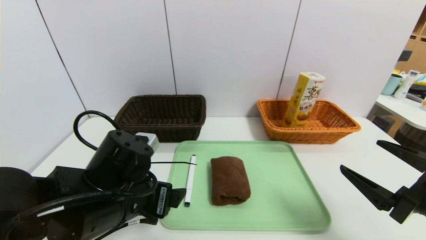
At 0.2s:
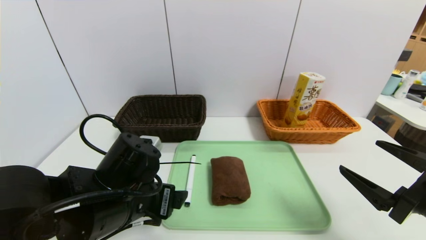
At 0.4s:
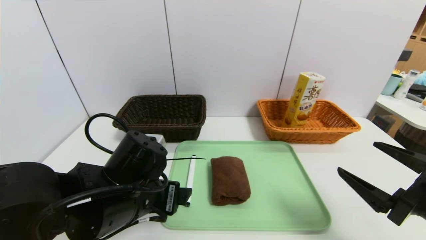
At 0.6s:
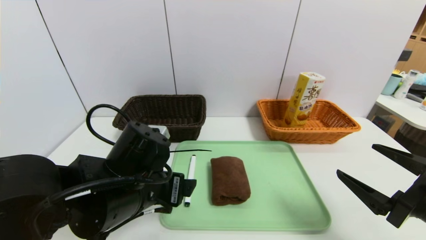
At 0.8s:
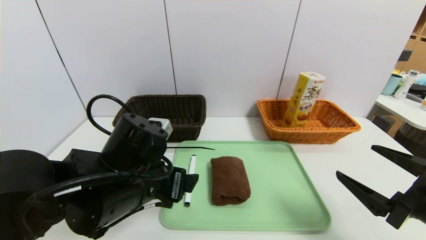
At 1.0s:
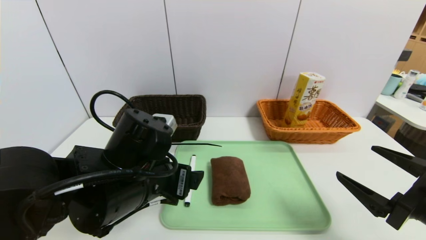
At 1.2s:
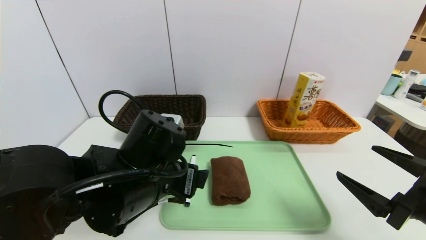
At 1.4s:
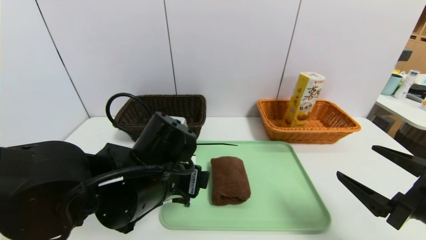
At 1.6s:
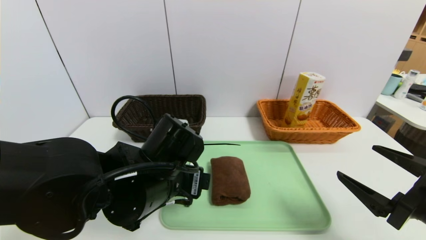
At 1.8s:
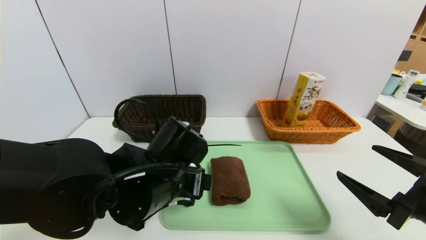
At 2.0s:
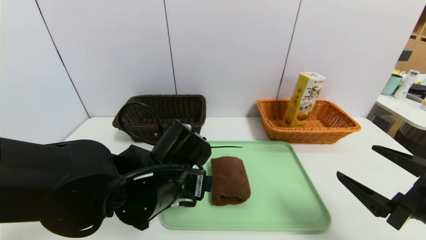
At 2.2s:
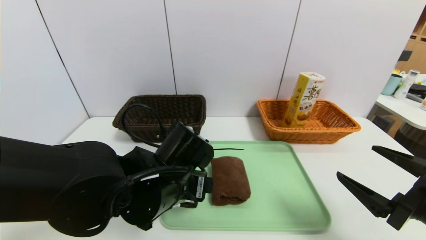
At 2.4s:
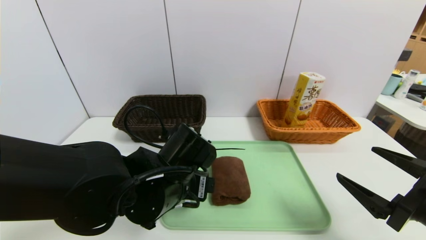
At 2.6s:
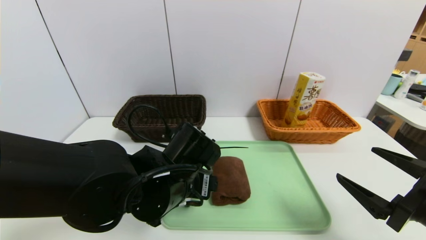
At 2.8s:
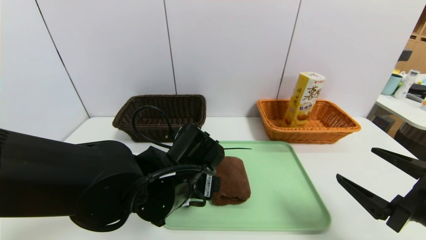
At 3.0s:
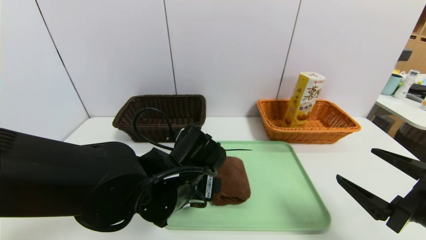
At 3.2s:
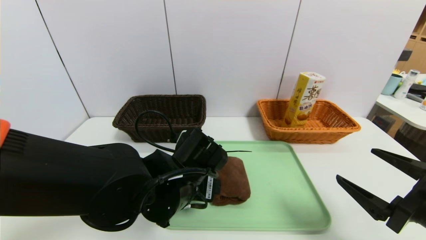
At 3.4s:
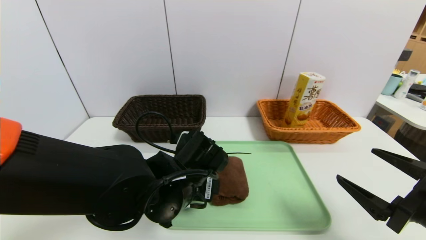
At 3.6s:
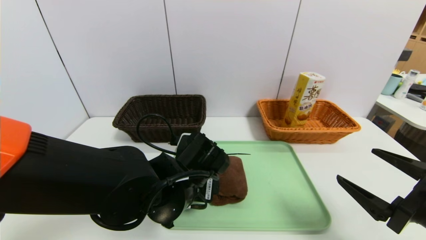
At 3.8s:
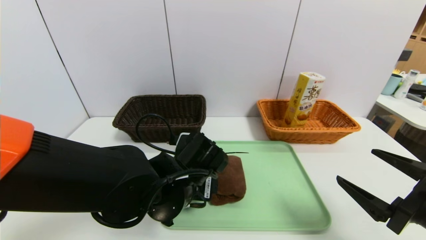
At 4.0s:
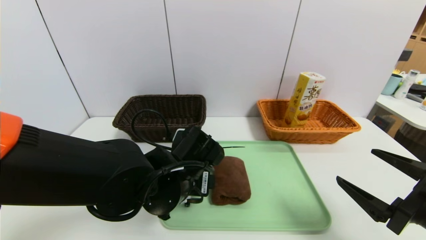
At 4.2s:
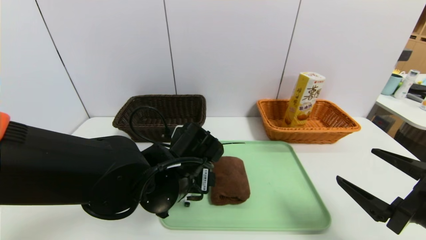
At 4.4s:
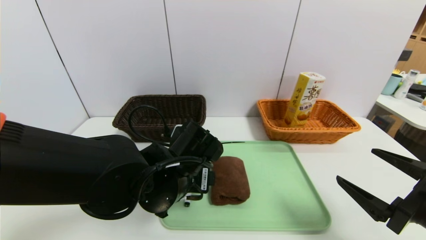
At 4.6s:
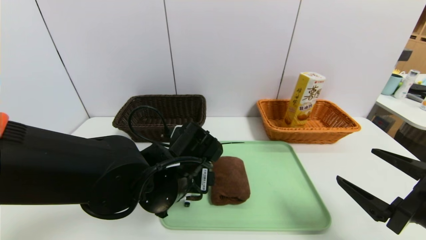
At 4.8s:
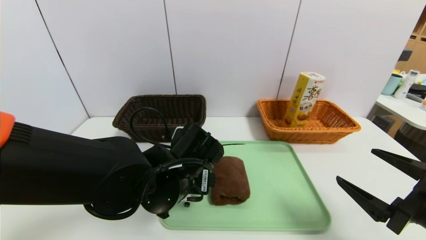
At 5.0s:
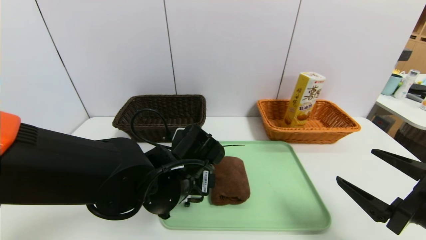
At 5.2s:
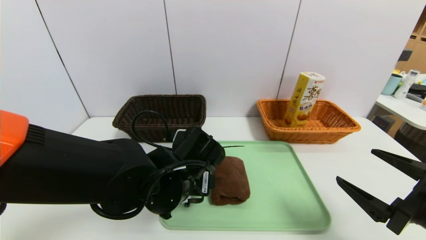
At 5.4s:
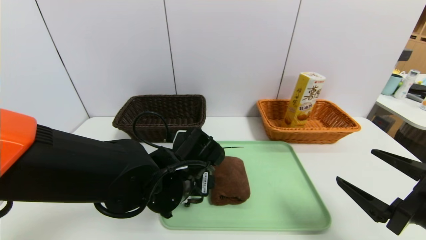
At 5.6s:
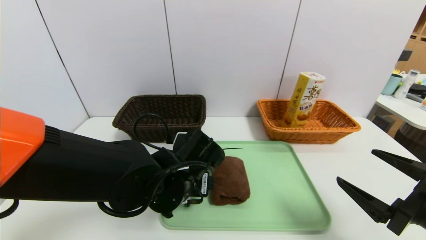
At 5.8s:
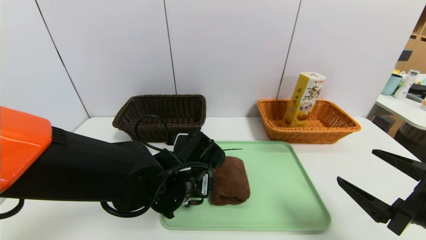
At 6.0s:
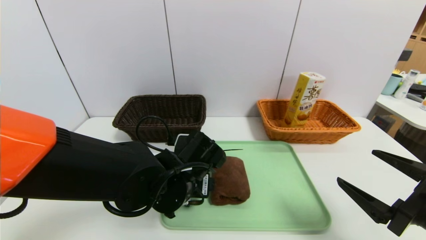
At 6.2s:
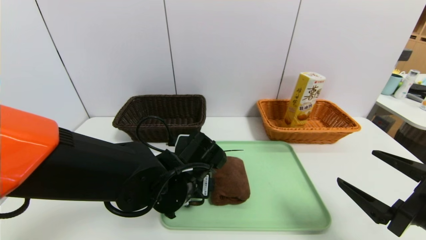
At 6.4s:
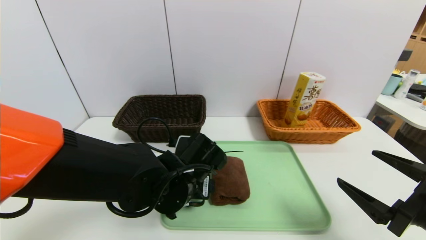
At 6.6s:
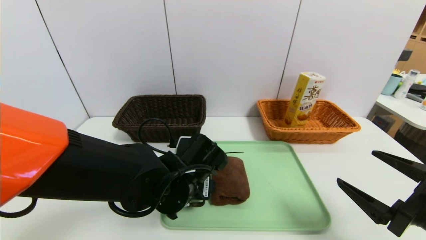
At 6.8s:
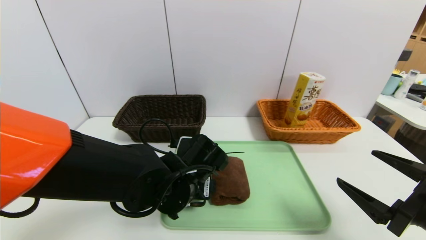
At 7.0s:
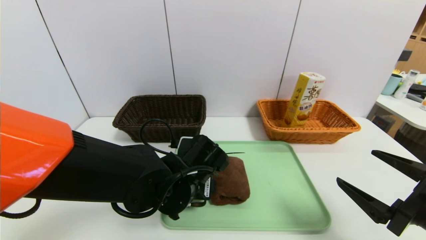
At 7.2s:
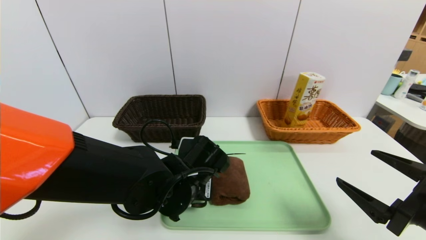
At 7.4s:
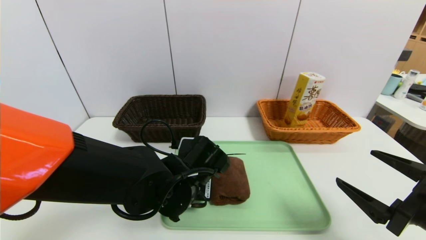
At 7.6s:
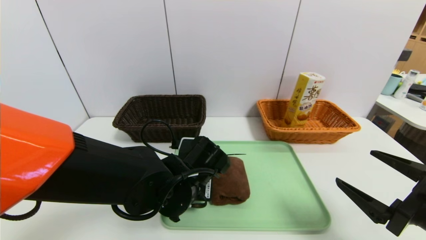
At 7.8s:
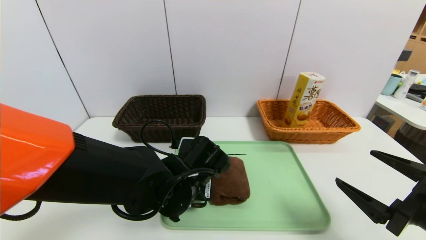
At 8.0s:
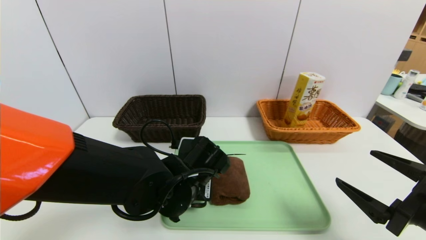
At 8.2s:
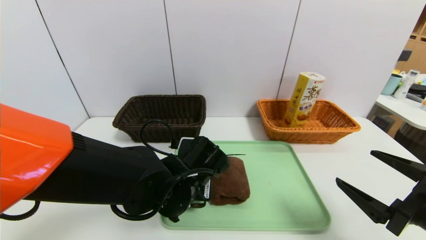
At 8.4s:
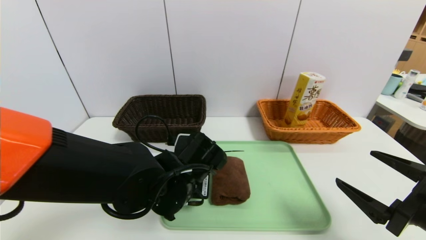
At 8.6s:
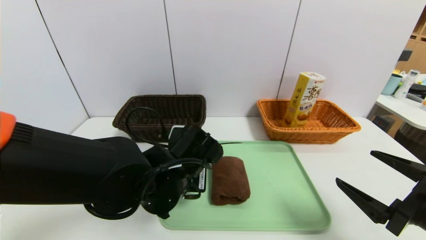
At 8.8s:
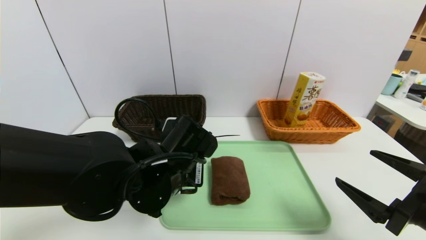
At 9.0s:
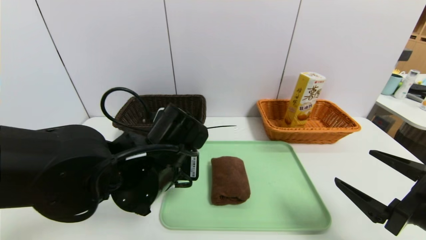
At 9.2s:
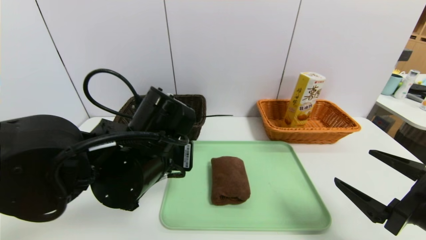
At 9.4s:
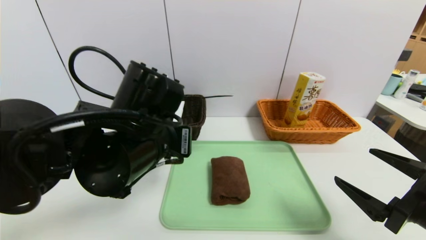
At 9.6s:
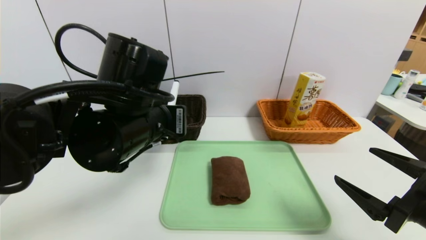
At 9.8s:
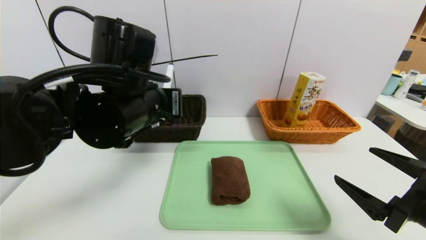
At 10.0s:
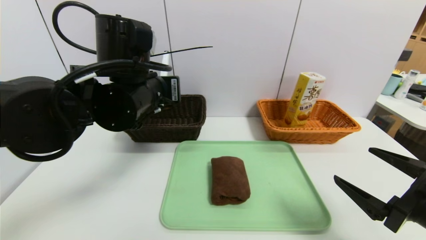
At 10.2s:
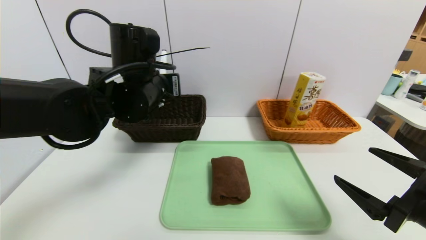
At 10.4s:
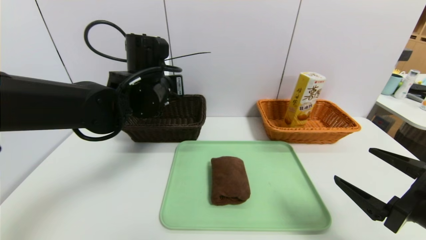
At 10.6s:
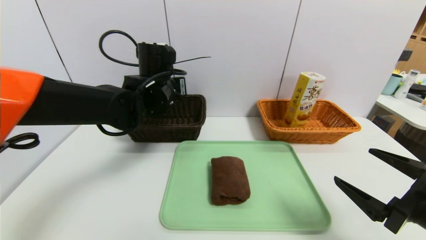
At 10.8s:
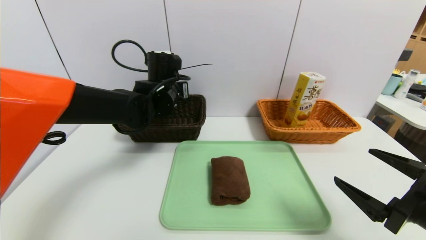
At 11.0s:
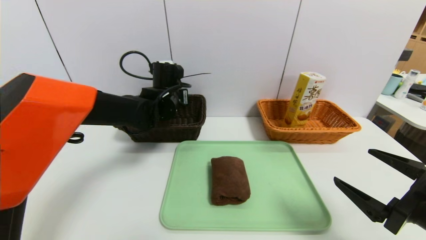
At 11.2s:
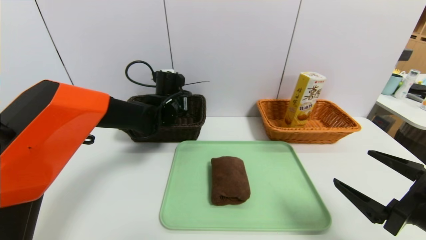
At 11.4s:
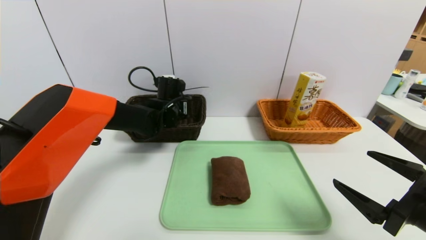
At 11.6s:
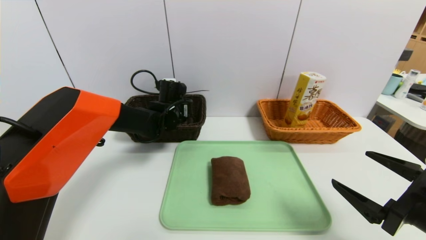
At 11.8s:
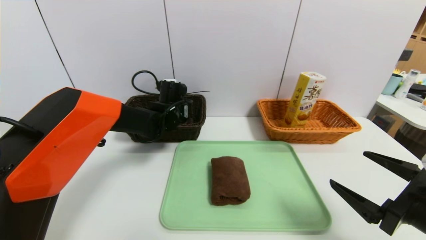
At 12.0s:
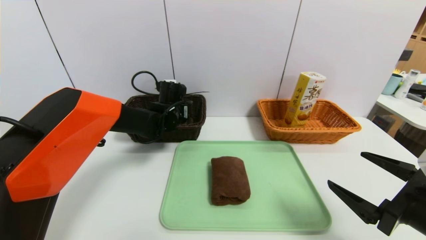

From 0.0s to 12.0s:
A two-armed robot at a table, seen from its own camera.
Task of the whole recording: place the food in the right basket with the right gripper, and place the non food items in the left basket with the left gripper.
From 0.0s to 1.6s: The left gripper heads to the right, covering some 5 cm.
From 1.6s to 4.4s: The grippers move only a little.
From 4.4s to 6.0s: The grippers move only a little.
From 6.0s to 7.6s: The left gripper closes.
From 7.6s to 9.0s: The left gripper is displaced upward by about 5 cm.
From 9.0s to 10.4s: The left gripper is displaced forward and upward by some 15 cm.
From 10.4s to 12.0s: The left gripper shifts about 15 cm downward and forward.

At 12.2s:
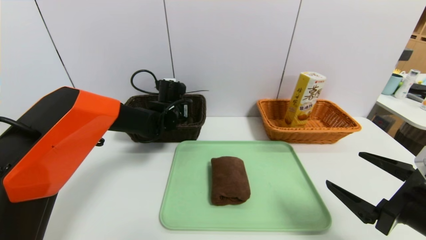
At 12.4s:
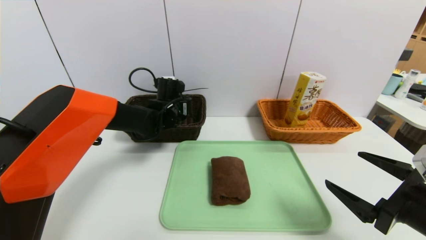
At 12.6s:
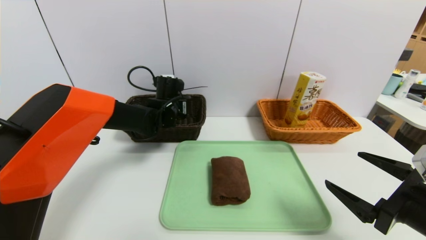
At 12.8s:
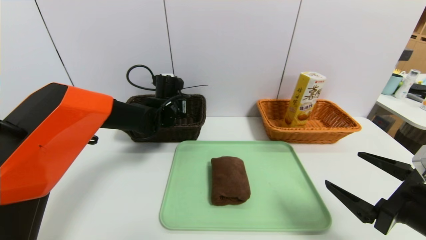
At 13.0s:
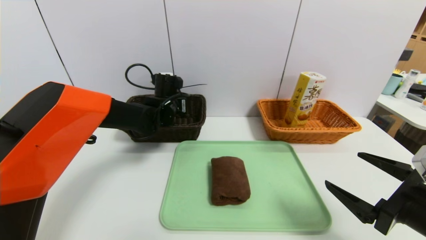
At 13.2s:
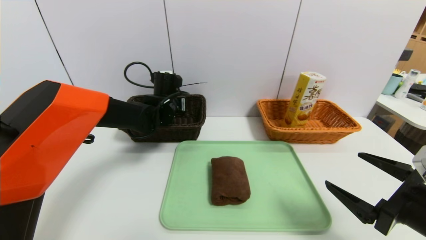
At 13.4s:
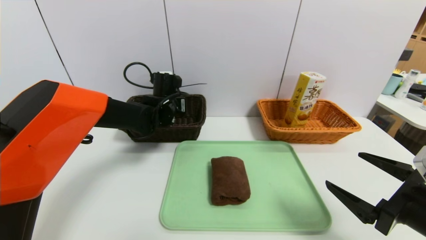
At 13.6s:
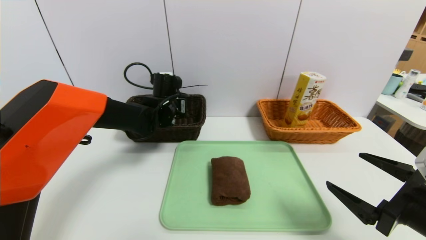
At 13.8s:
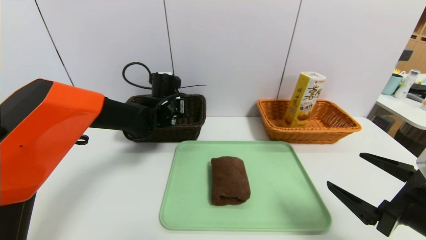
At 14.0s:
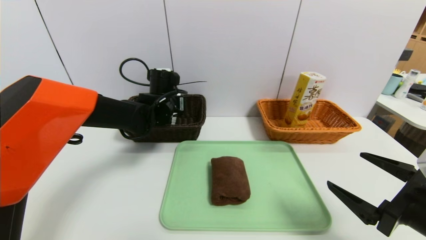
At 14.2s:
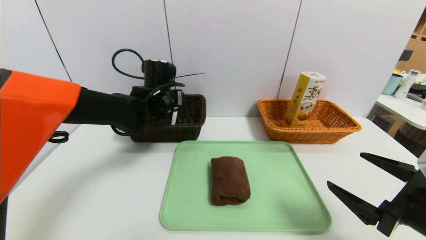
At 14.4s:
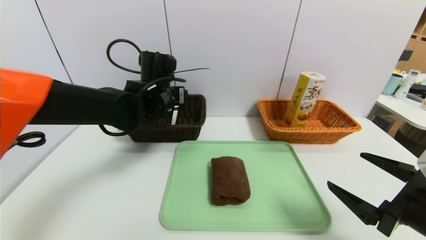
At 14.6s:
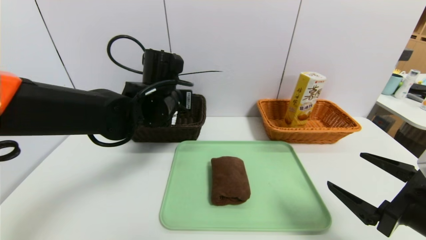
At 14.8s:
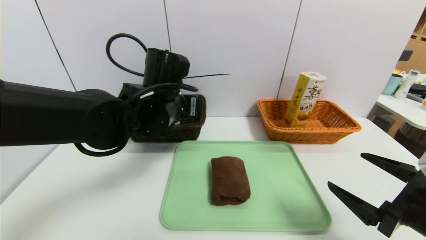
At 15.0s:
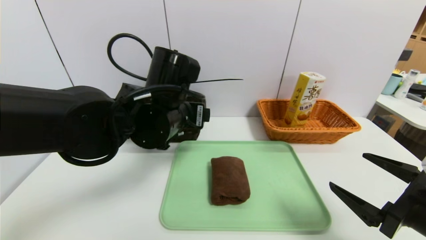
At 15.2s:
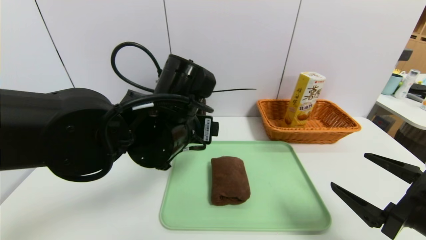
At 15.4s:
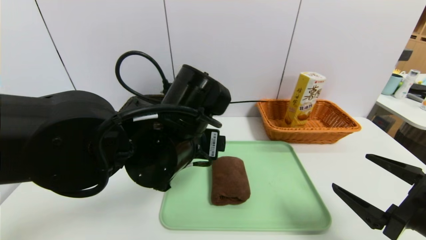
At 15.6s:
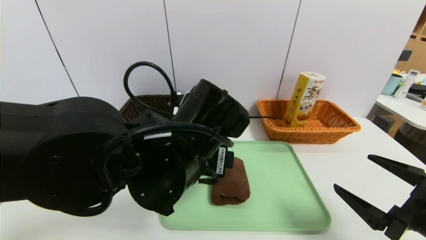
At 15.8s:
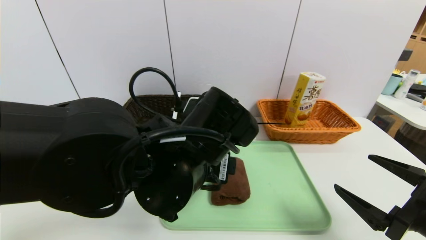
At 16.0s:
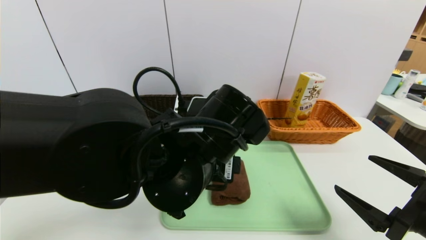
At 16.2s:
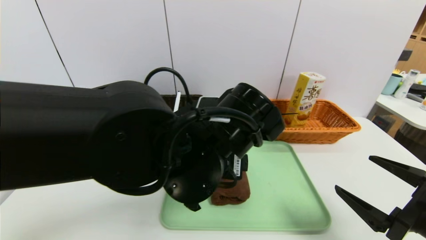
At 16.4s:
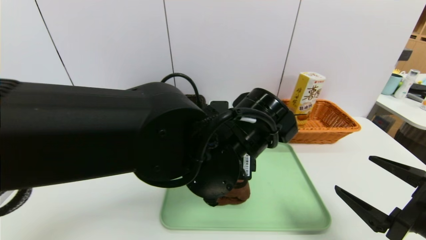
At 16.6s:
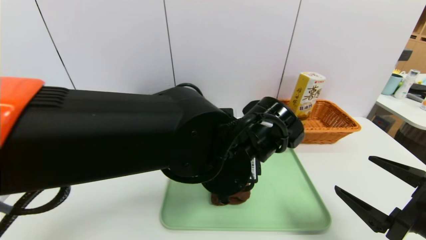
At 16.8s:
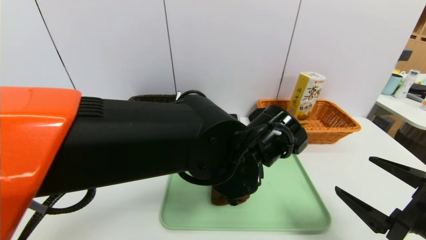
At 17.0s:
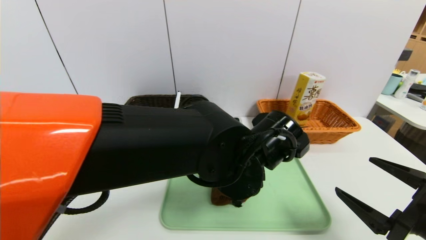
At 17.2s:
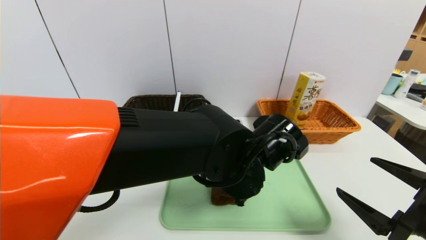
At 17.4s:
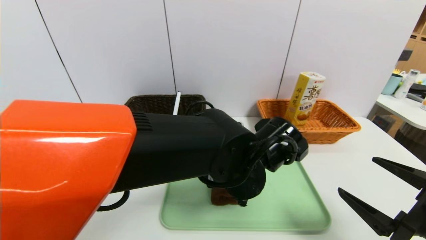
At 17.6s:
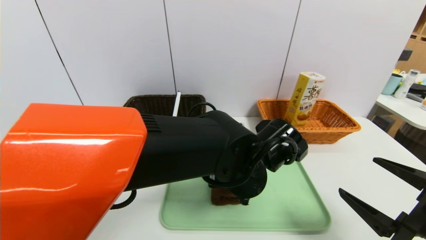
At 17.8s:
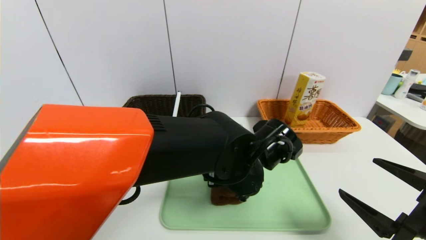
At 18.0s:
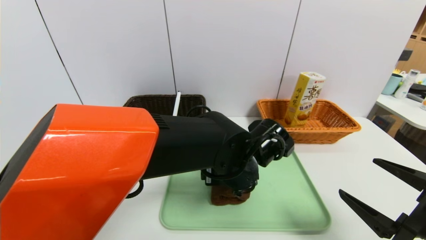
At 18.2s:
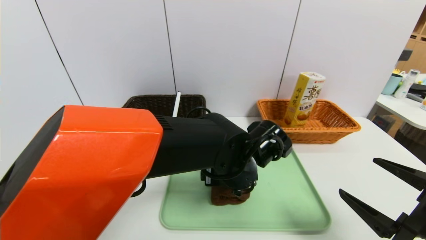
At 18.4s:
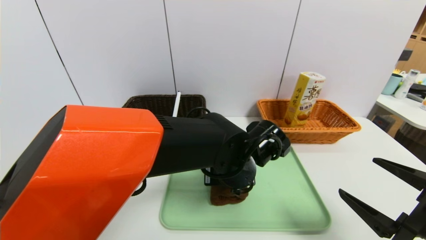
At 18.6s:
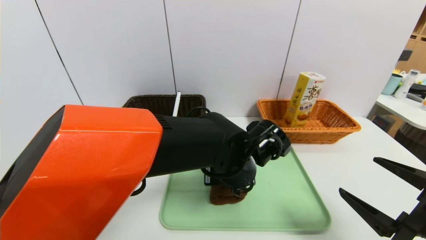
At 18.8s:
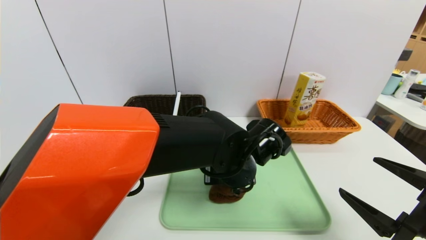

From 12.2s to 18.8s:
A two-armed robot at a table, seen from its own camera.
Task of the whole recording: place the food in the right basket with the right gripper, and place the non food items in the left basket with the left gripper.
From 12.2s to 13.8s: The left gripper opens its fingers.
From 13.8s to 15.4s: The left gripper travels backward by about 20 cm.
From 15.4s to 17.2s: The left gripper travels to the right and downward by some 10 cm.
From 17.2s to 18.8s: The left gripper closes up.
